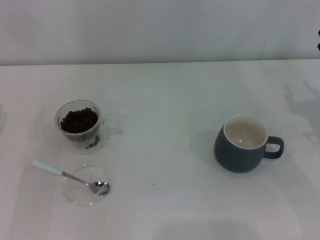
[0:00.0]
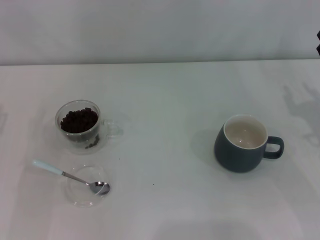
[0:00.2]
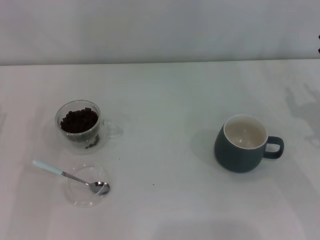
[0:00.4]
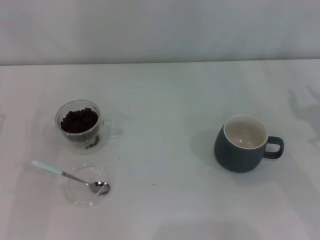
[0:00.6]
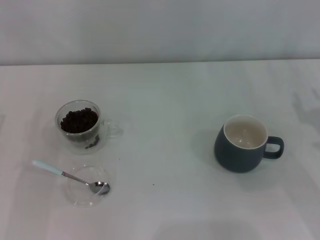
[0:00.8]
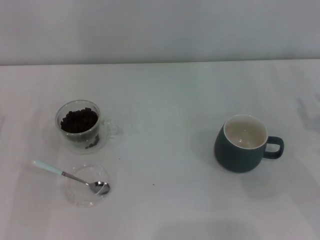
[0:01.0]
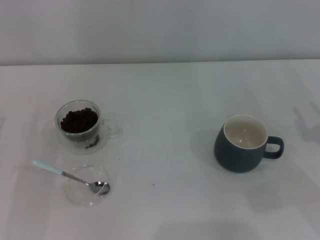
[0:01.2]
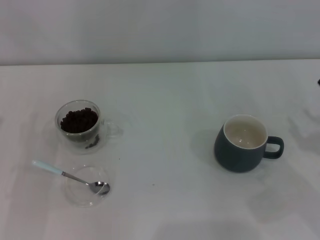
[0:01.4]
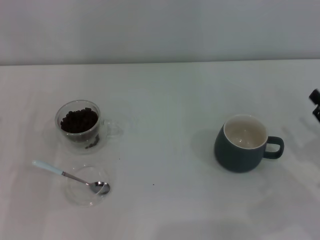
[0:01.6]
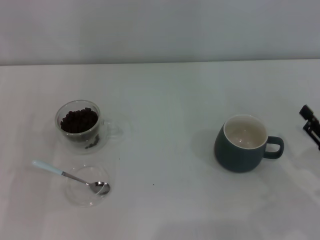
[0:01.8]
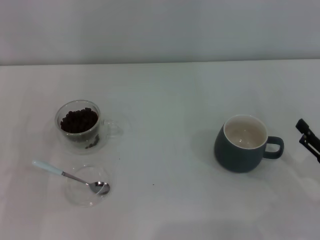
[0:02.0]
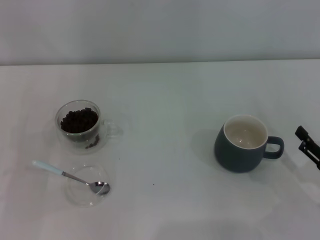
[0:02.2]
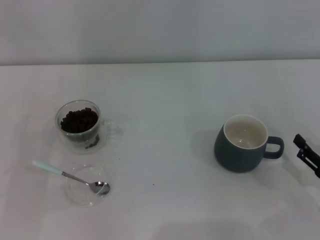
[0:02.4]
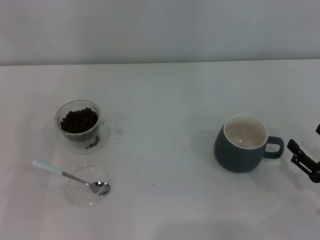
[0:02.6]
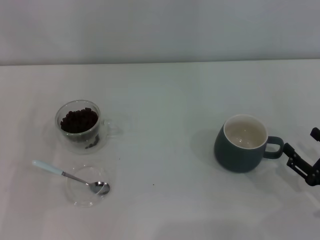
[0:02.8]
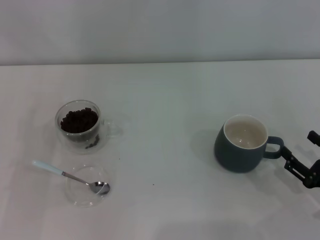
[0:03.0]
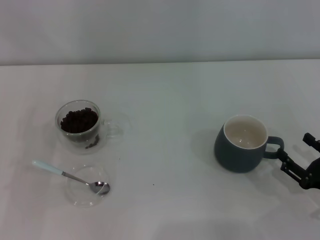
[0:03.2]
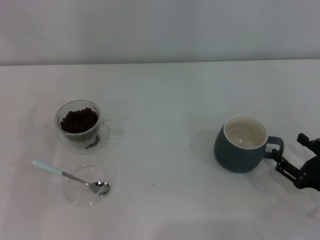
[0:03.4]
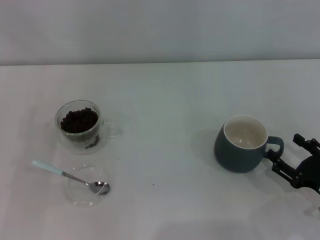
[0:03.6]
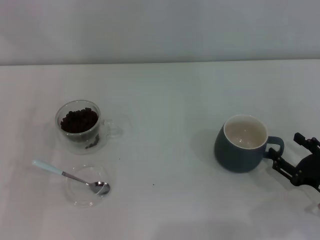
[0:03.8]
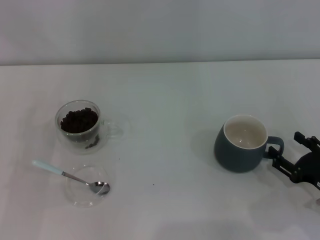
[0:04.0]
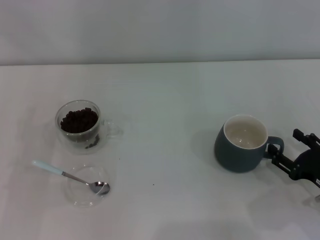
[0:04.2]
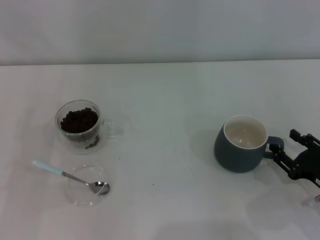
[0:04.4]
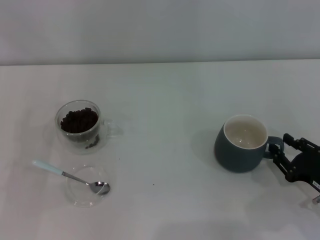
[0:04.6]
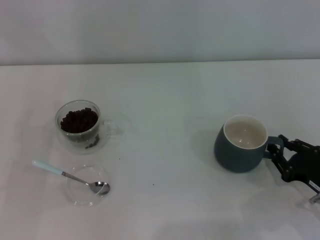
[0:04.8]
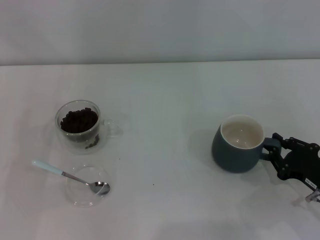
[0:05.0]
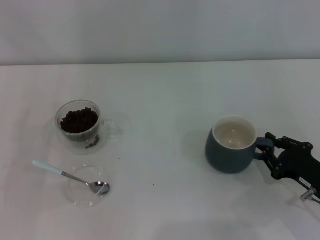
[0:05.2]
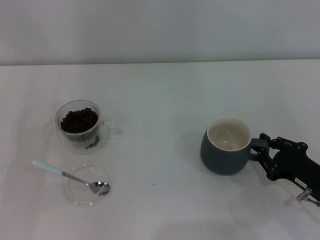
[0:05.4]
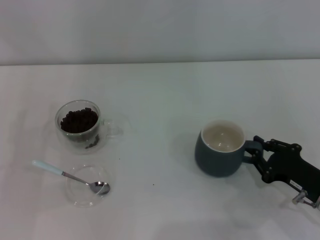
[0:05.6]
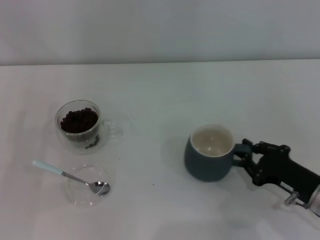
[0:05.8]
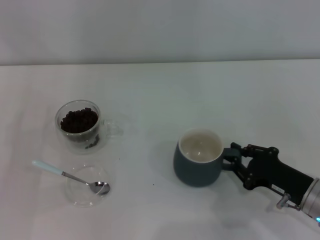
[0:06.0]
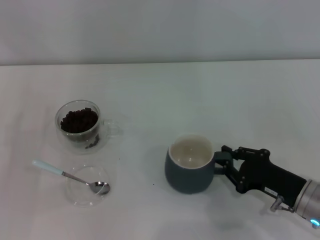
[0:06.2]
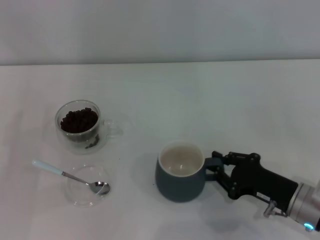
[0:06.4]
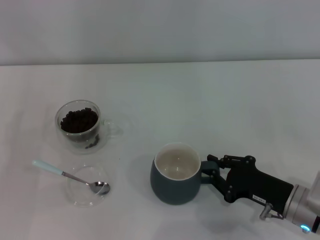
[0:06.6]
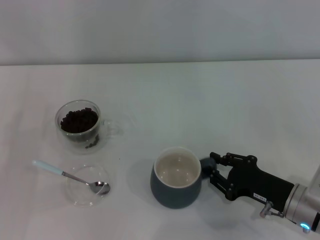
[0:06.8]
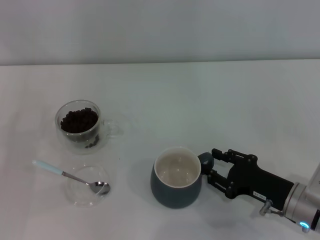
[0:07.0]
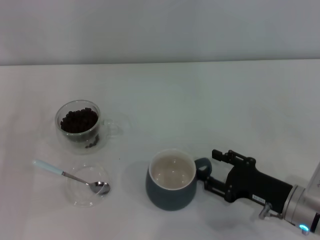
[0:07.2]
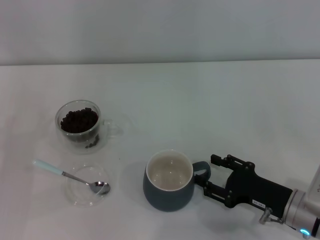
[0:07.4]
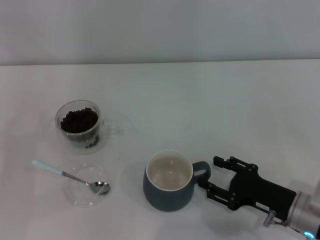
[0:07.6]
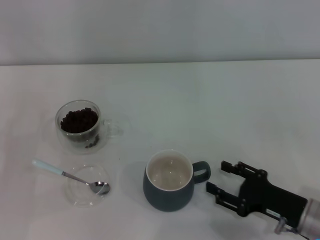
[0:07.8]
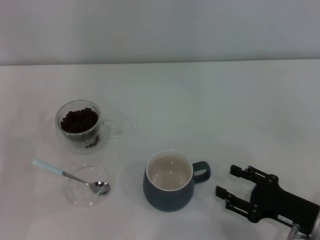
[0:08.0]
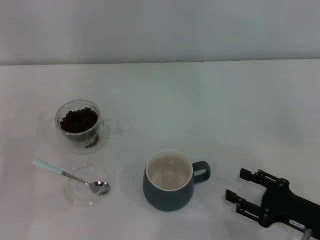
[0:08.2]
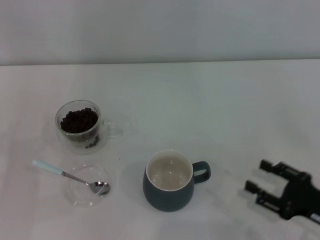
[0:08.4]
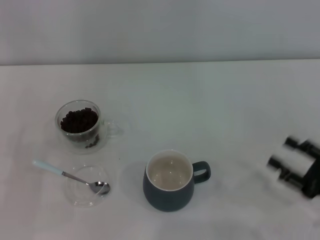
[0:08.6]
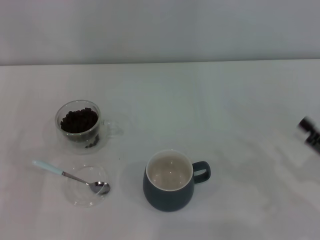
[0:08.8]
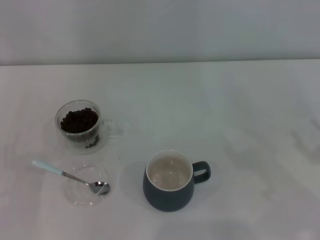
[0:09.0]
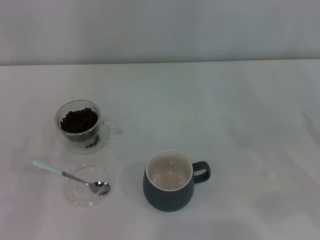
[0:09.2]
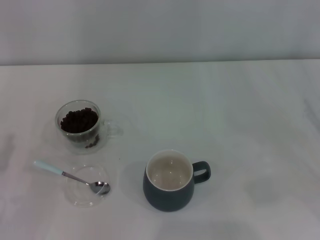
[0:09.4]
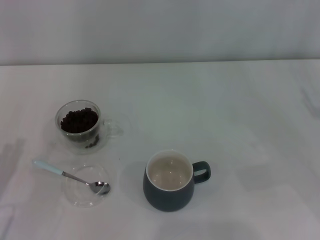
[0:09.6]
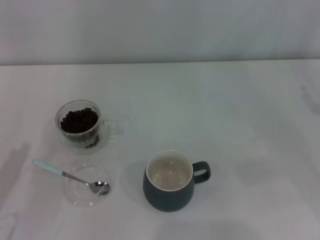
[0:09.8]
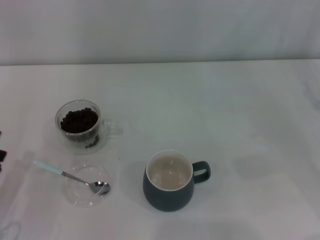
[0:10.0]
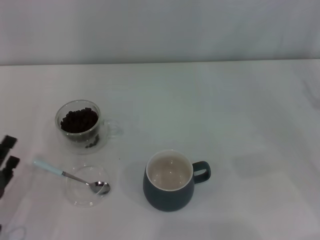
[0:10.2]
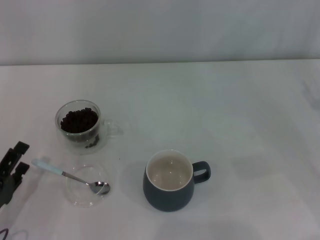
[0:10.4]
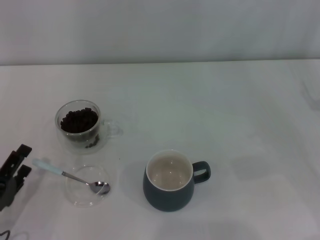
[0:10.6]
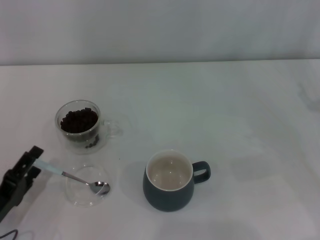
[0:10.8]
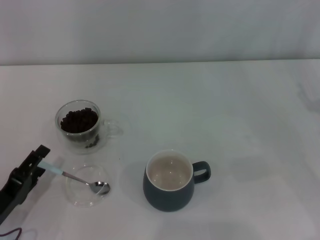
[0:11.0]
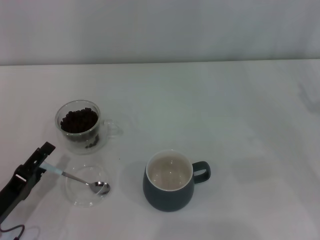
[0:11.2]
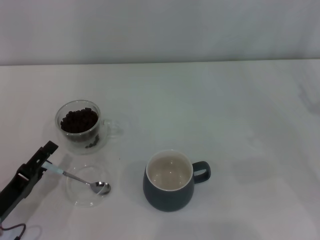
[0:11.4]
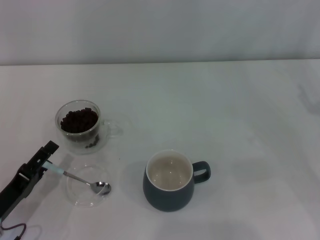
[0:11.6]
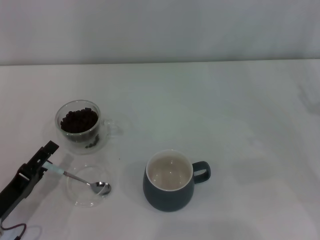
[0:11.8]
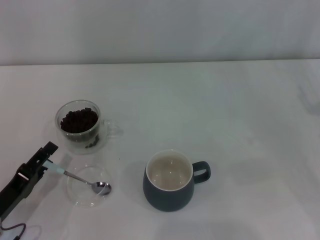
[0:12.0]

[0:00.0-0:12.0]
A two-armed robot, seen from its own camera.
Task of the whole recording: Use a blue spoon to take out the coffee beans from the glass and pour them into the gray cup.
Step, 0:00.0 to 0:07.6: Move the cup to the center of view with the left gripper.
0:00.0 to 0:01.6: The right gripper is displaced backward by some 10 cm.
0:01.6 to 0:03.0: The right gripper ends up some 5 cm from where it was, and opens.
0:03.0 to 0:04.4: The grippers stay close to where they were, moving slightly.
0:04.4 to 0:06.0: The right gripper travels to the left by about 5 cm, and closes its fingers.
0:06.0 to 0:07.6: The right gripper opens its fingers.
0:07.6 to 0:09.0: The right gripper goes roughly 15 cm to the right and upward.
0:09.0 to 0:10.4: The left gripper changes place by about 5 cm.
0:10.4 to 0:12.0: The grippers stay close to where they were, moving slightly.

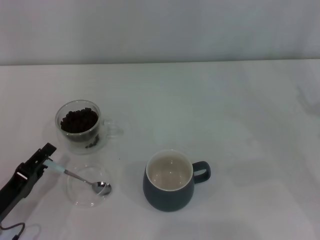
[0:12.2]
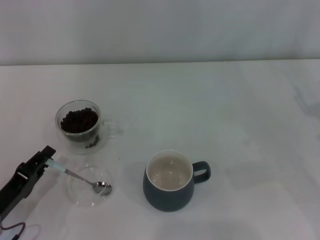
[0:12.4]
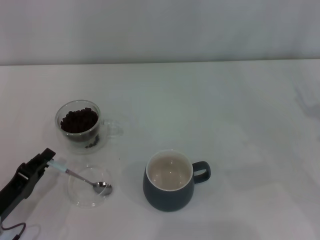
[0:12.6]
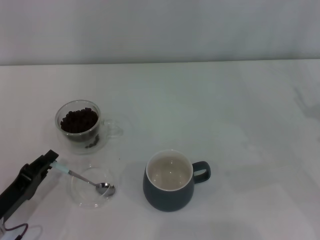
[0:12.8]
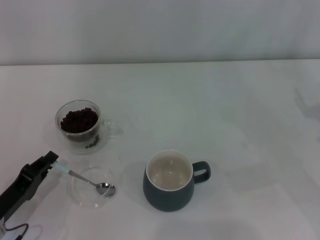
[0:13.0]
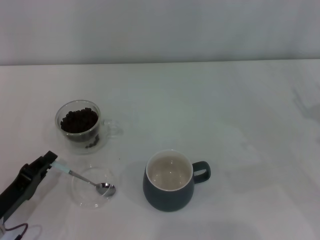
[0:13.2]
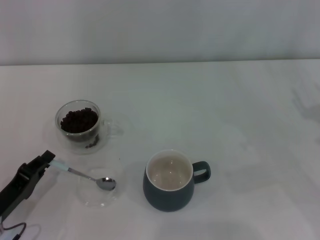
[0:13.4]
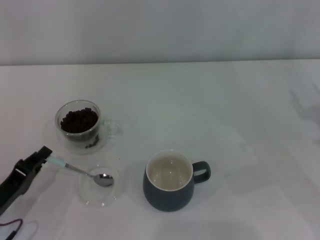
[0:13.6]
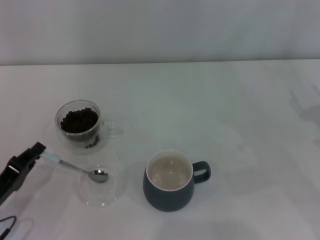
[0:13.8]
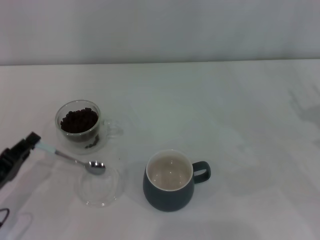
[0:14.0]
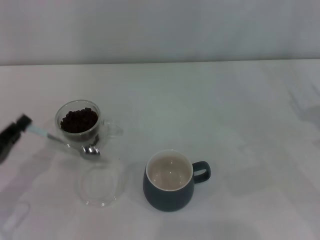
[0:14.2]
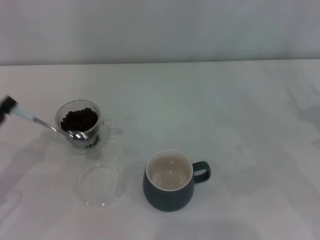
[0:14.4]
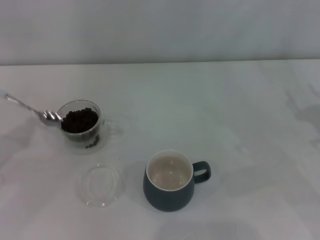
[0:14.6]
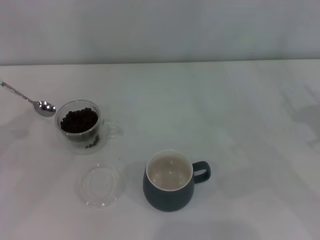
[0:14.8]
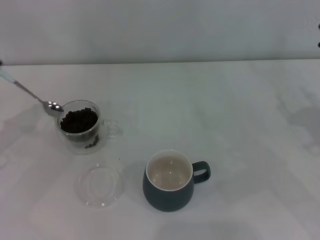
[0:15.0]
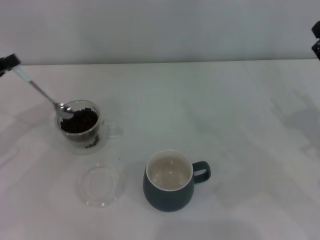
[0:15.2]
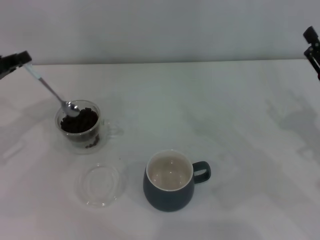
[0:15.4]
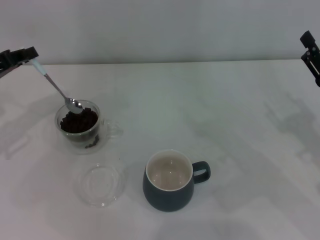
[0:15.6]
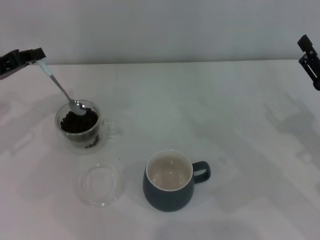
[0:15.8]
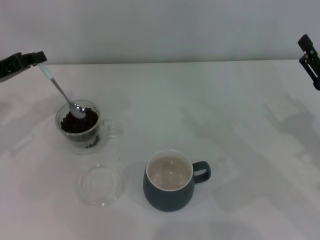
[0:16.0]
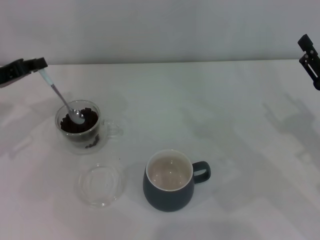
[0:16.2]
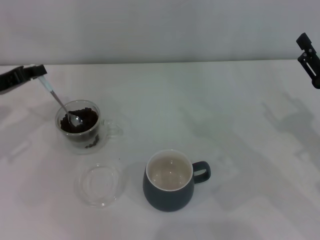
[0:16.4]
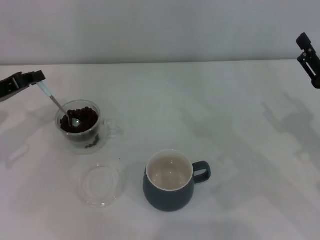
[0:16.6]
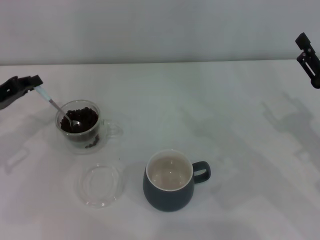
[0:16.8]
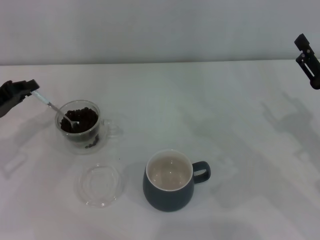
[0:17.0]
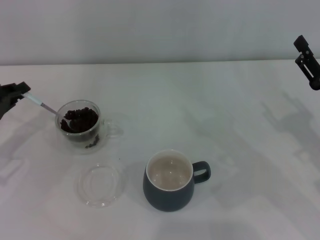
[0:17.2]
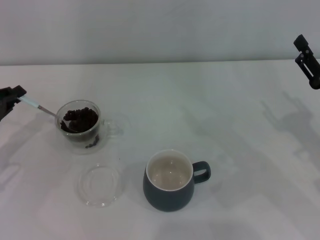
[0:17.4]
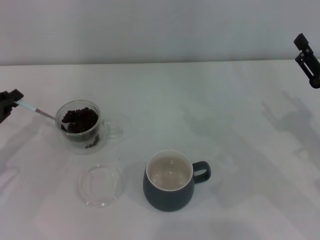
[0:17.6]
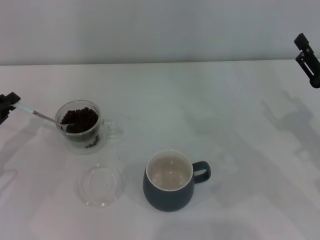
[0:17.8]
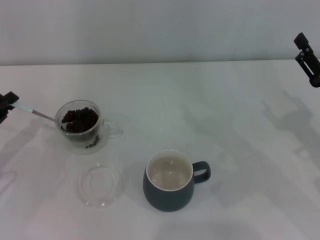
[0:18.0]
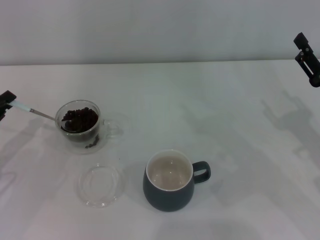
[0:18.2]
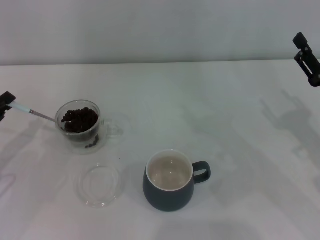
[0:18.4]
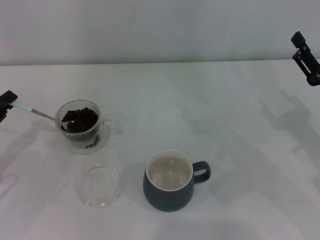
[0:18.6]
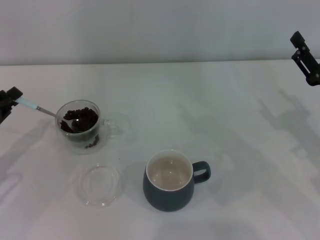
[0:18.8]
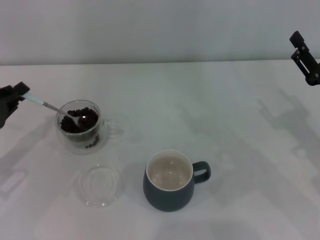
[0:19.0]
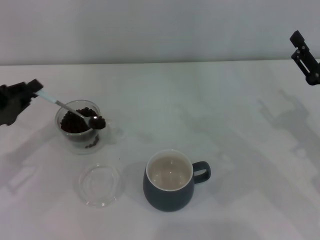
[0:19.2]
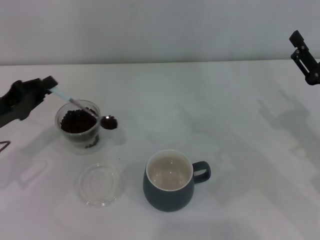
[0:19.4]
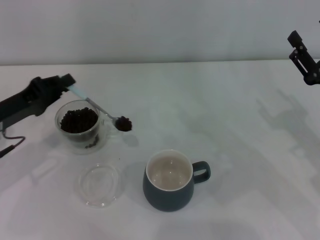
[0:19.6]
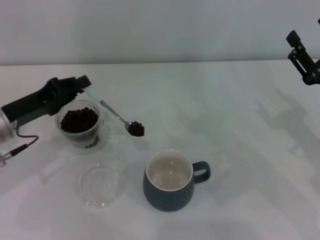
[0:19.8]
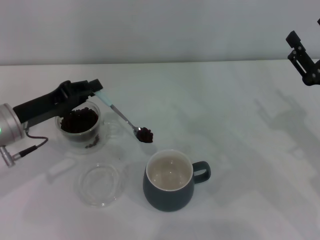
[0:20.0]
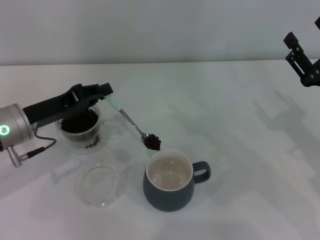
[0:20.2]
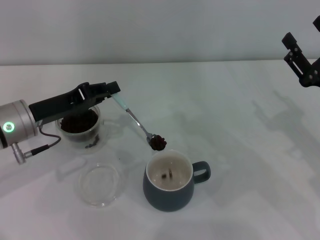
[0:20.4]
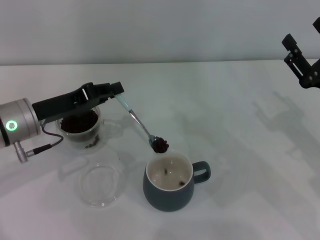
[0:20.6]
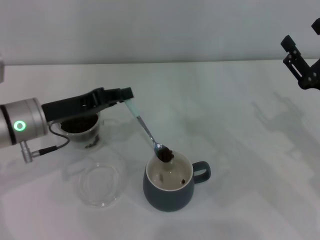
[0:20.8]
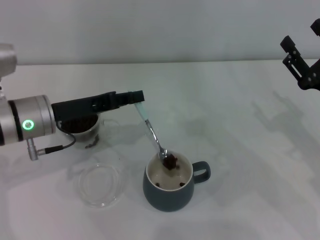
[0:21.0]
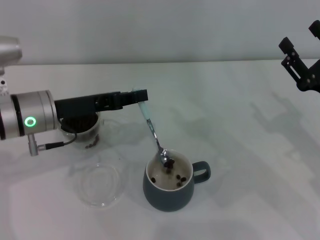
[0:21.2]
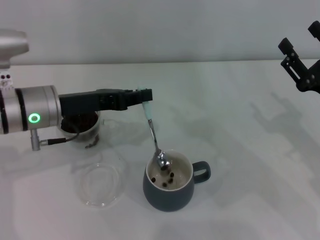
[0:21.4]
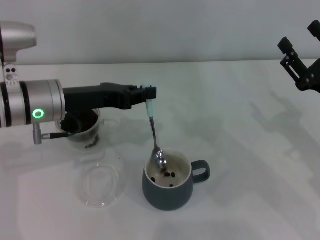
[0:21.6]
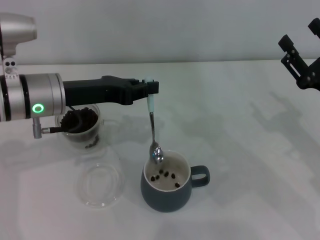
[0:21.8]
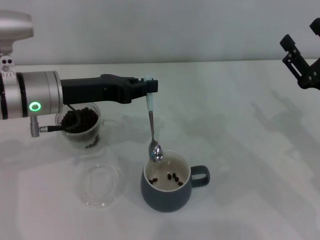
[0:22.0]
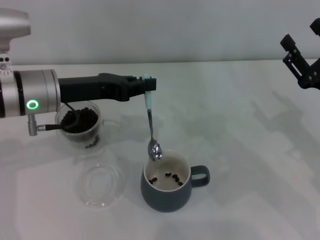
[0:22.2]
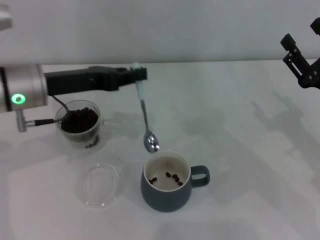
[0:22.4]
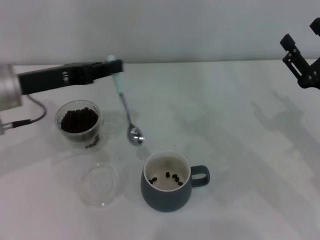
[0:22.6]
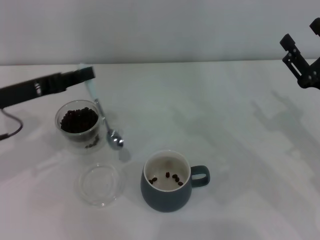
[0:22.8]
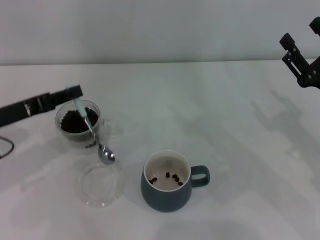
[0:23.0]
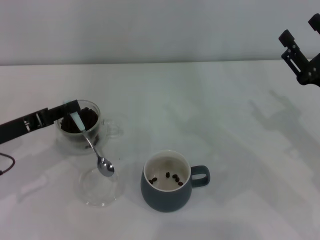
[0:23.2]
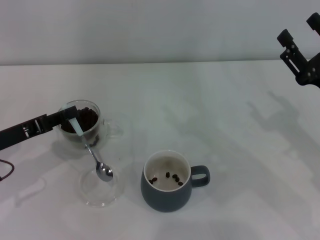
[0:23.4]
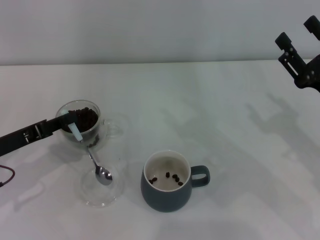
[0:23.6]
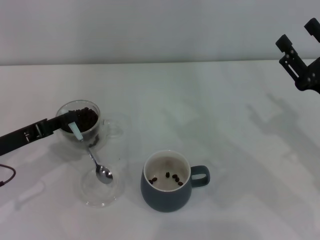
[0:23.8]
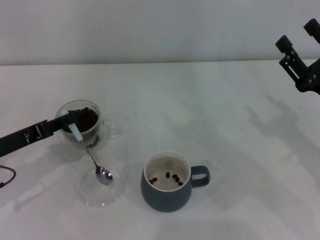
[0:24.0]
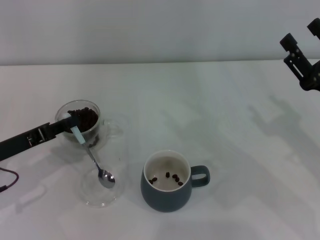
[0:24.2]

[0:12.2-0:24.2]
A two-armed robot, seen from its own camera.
Task of the whole recording: Use a blue spoon to take out the coffee beans from the glass and pour them into the gray cup.
0:12.2 to 0:13.8: The left gripper closes up.
0:13.8 to 0:15.2: The left gripper goes about 20 cm forward, upward and to the left.
0:15.2 to 0:16.6: The grippers move only a little.
0:16.6 to 0:18.2: The left gripper travels backward by about 5 cm.
0:18.2 to 0:19.8: The left gripper is displaced to the right by about 10 cm.
0:19.8 to 0:21.2: The left gripper is displaced to the right by approximately 5 cm.
0:21.2 to 0:22.6: The left gripper ends up about 5 cm from where it was.
0:22.6 to 0:24.2: The left gripper heads downward, backward and to the left, covering about 10 cm.
